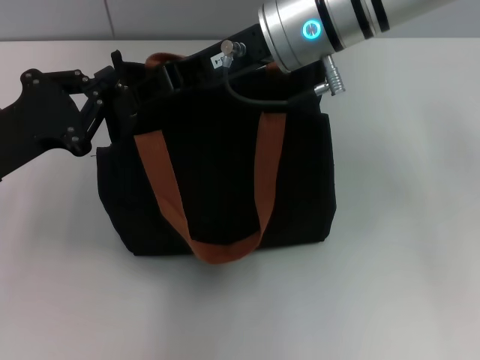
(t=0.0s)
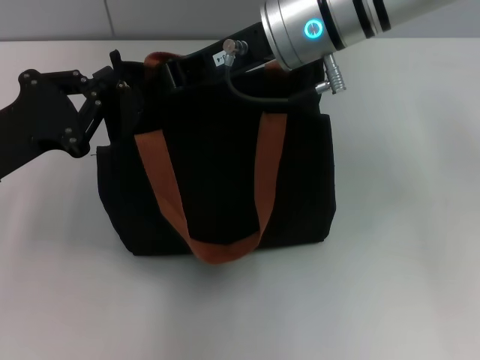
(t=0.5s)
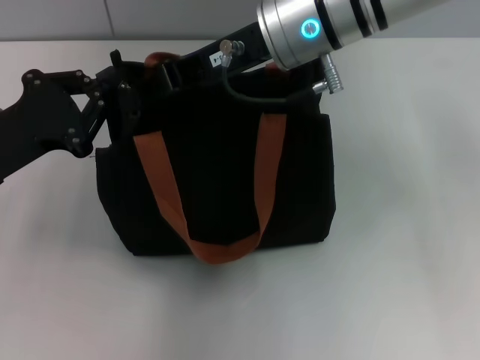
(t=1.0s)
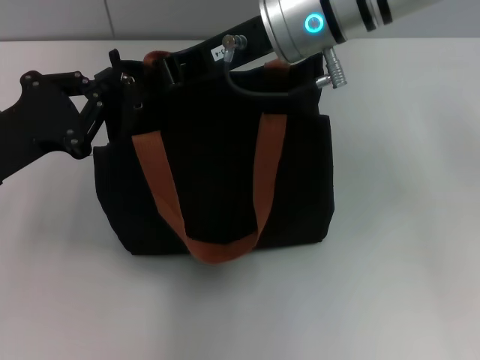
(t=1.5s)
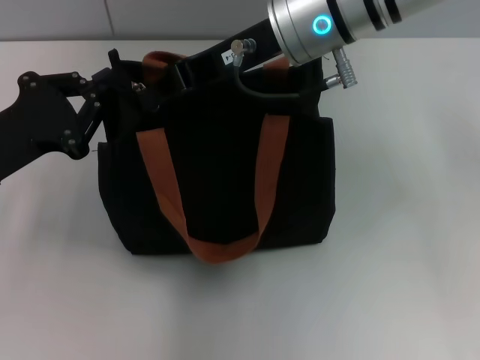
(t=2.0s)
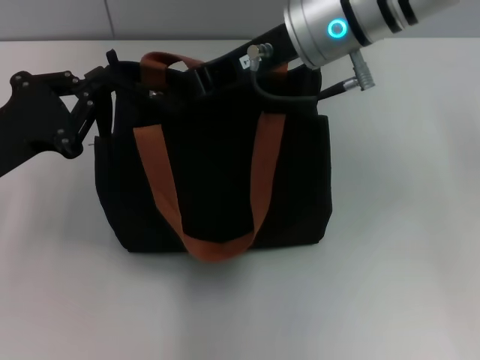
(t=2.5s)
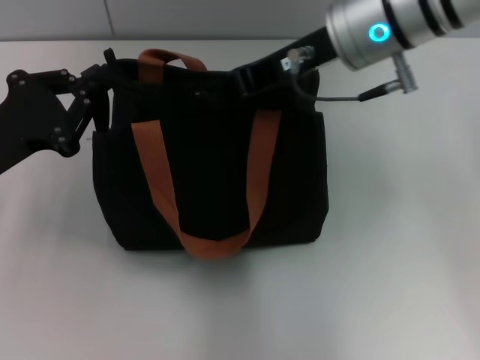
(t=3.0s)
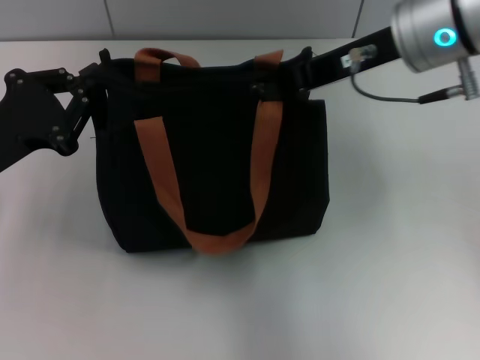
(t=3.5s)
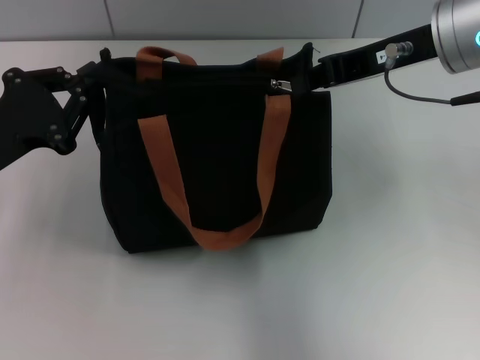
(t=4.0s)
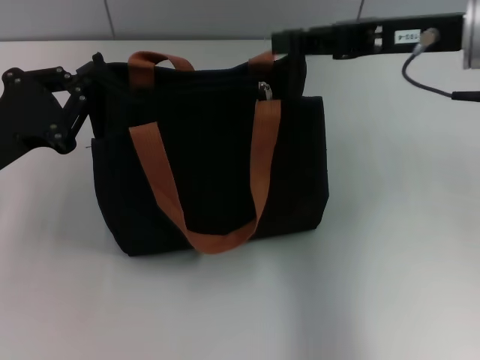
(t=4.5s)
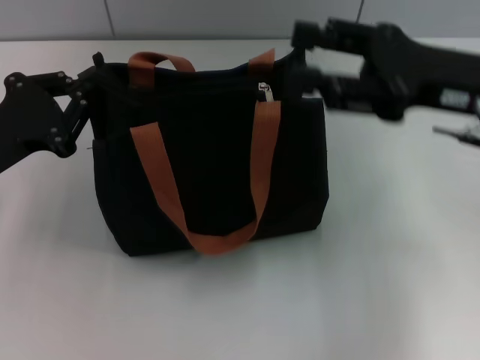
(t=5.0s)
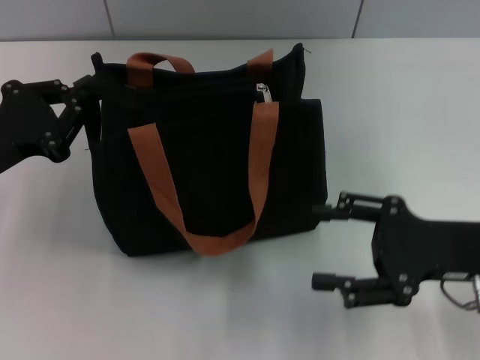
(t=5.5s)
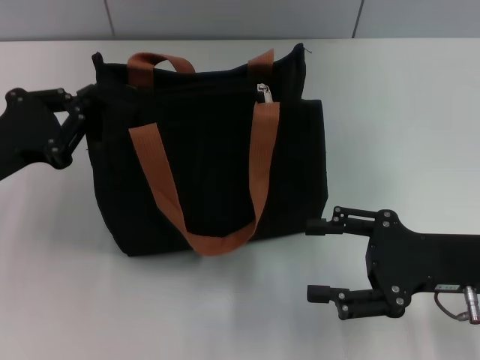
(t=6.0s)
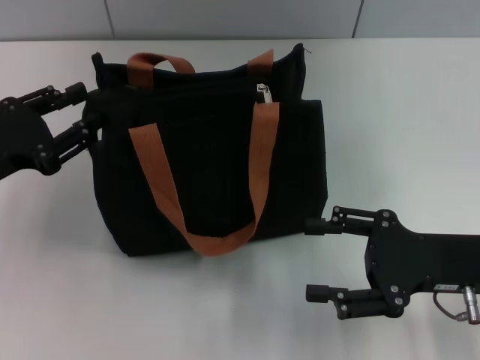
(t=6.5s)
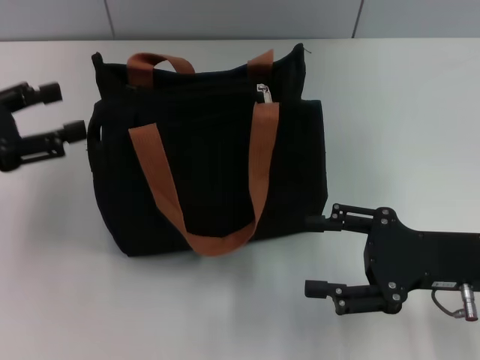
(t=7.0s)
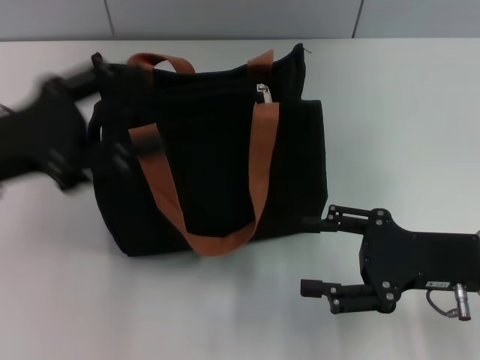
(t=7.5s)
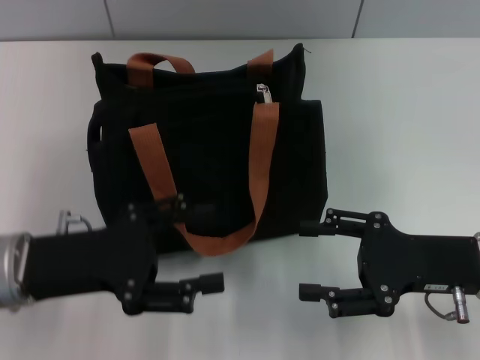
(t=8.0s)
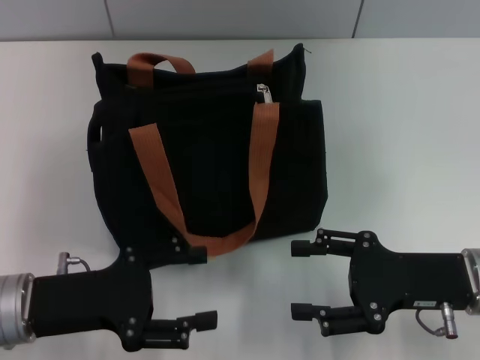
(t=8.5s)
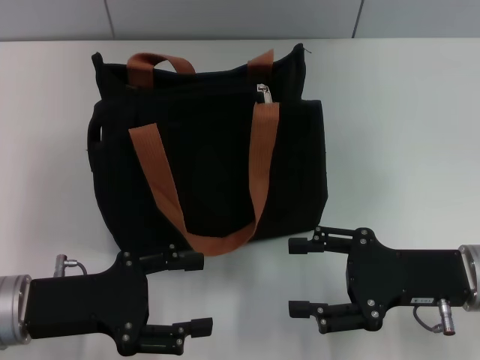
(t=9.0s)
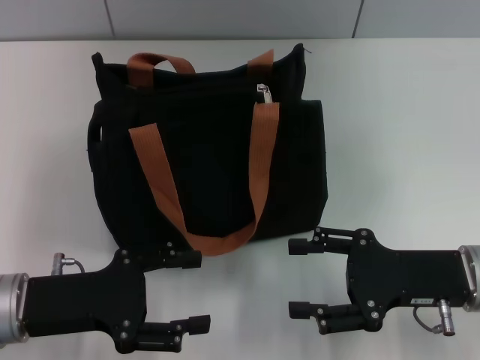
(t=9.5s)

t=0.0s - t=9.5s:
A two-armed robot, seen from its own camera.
Step, t=0.0s - t=4.0s: Pull up the zipper with your right hand.
t=0.0s - t=2.0s: The right gripper closes up.
t=2.0s - t=4.0s: The right gripper moves to the right, about 10 cm.
t=4.0s - t=5.5s: The right gripper travels downward, backward and to the right by about 20 cm, and opens its fingers.
t=5.5s - t=7.5s: The left gripper heads upward, covering some 5 cm, and opens.
t=7.5s - t=9.5s: The left gripper is displaced downward and backward by roughly 10 cm.
